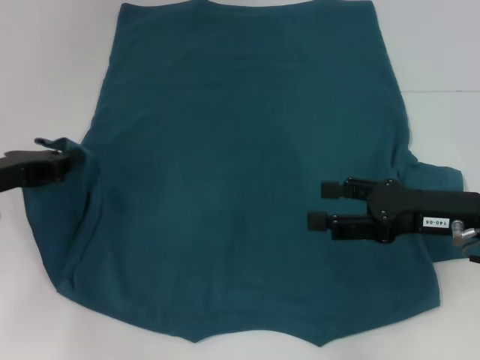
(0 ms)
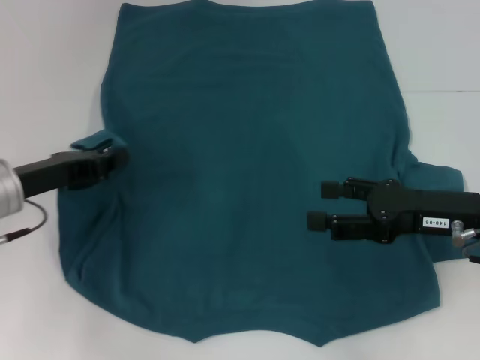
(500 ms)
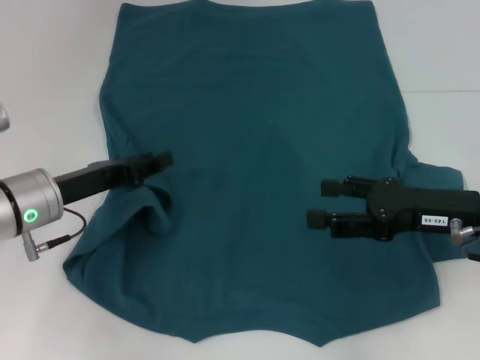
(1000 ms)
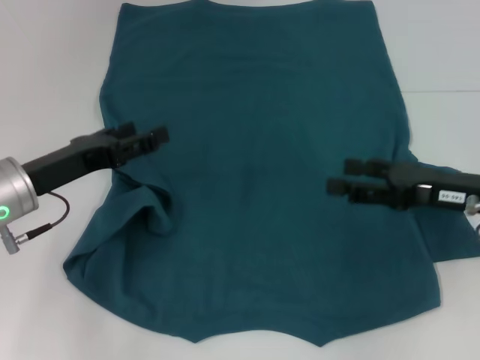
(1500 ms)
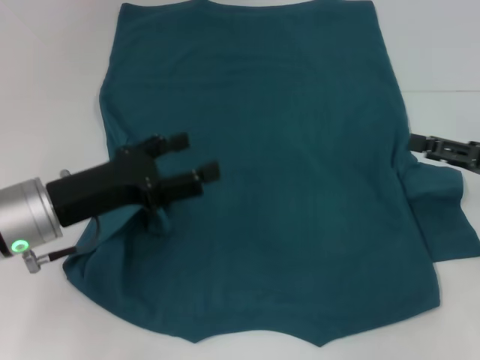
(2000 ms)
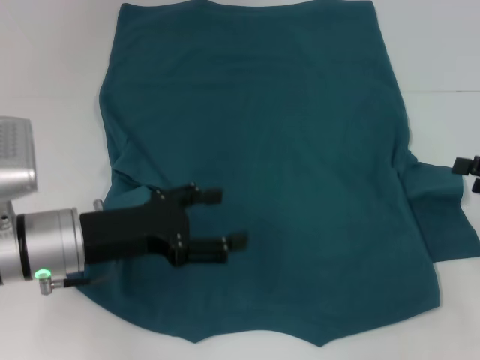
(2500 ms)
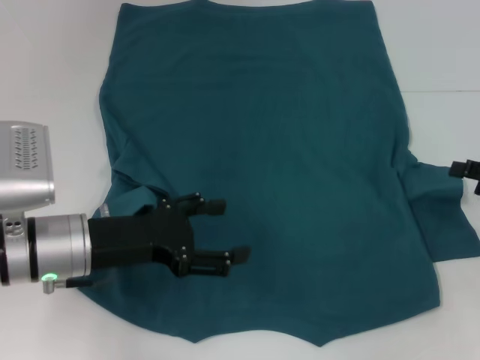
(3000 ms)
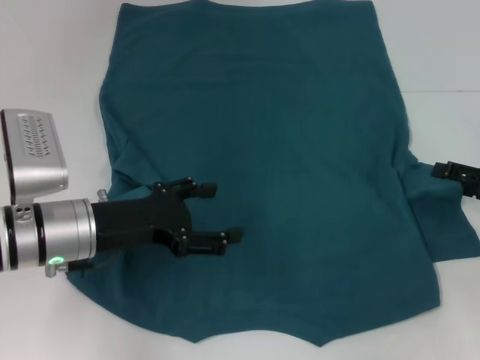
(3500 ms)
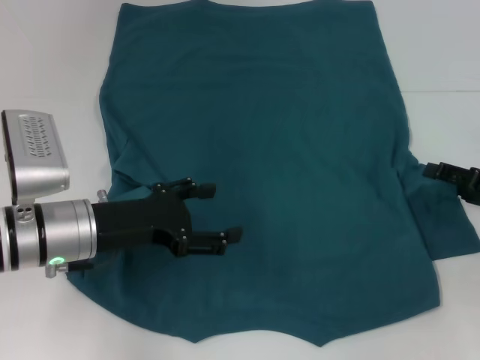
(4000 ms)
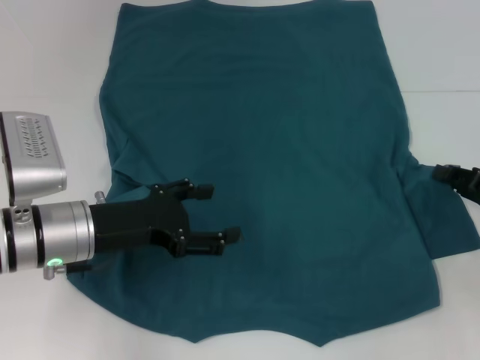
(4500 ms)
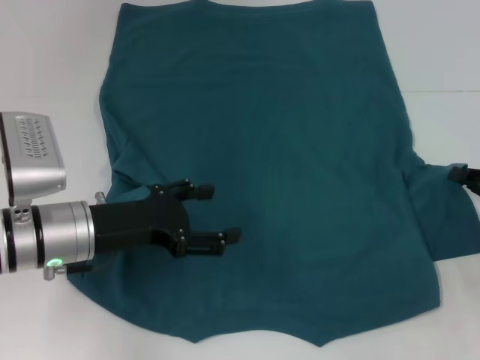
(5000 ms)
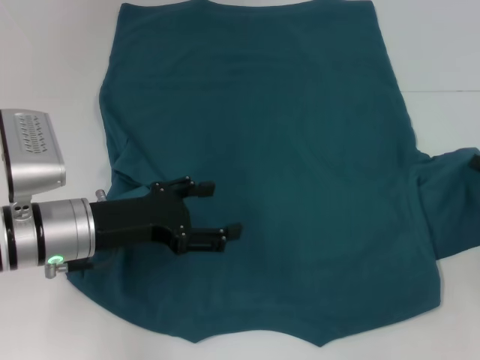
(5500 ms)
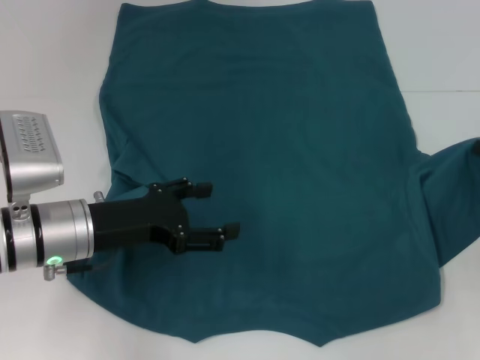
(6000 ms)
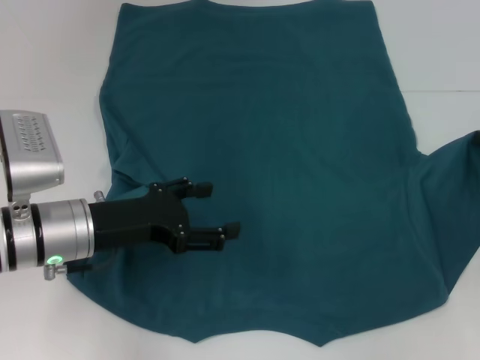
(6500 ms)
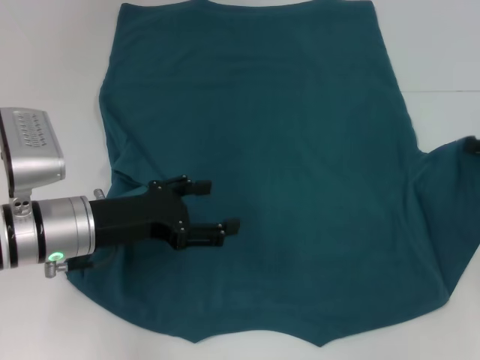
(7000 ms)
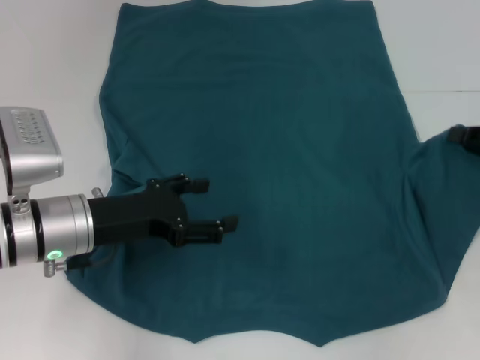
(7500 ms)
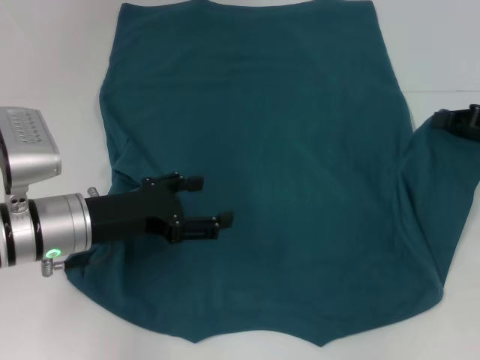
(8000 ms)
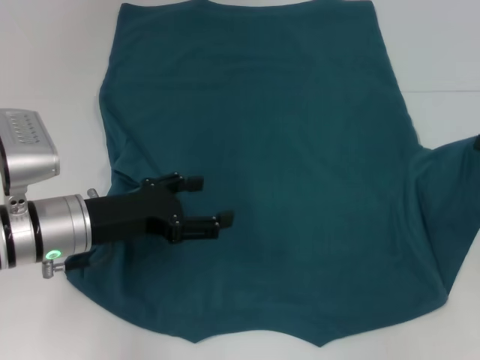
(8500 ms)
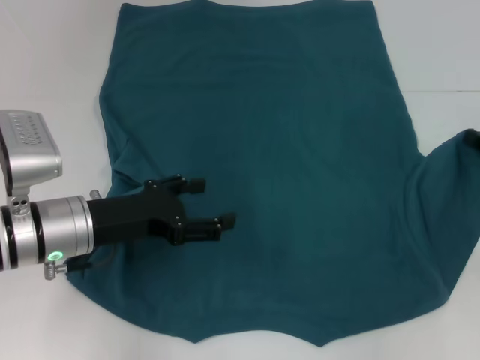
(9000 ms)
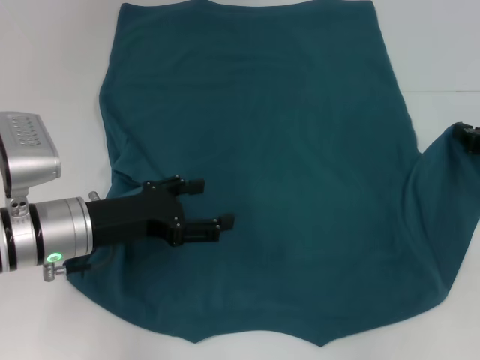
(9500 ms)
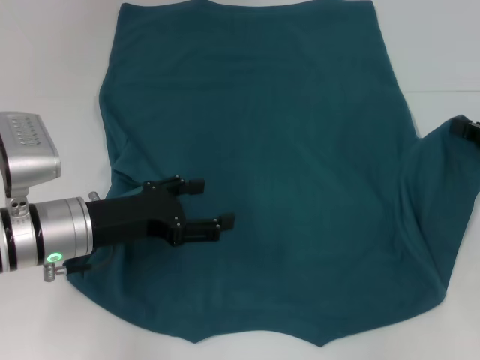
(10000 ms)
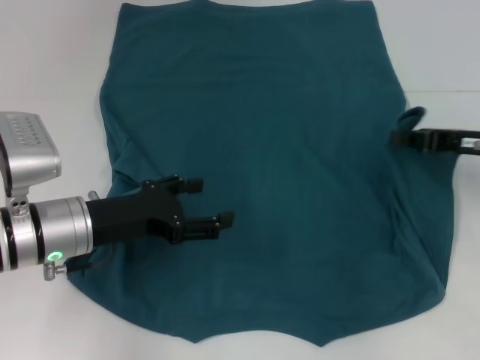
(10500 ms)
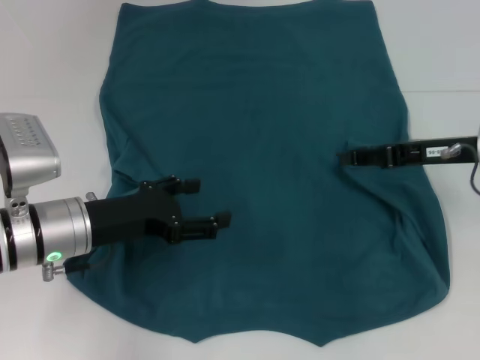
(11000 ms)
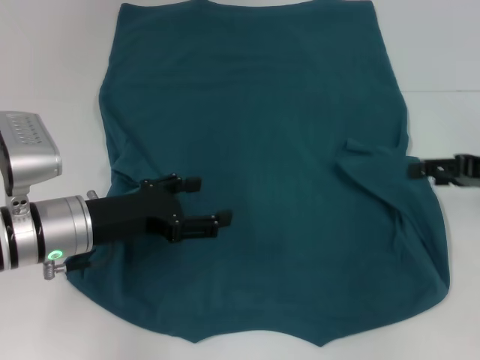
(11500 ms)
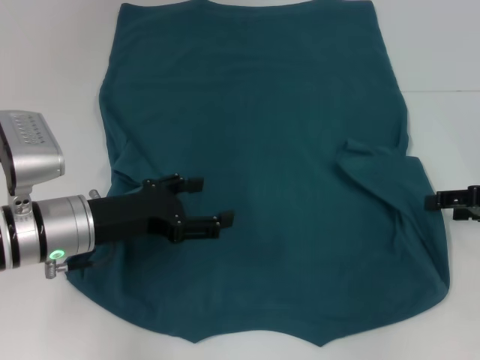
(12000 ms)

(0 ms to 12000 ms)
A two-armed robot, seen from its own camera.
0 ms - 2000 ms: Both grippers move to the right, about 10 cm. The left gripper opens up.
2000 ms - 4000 ms: The right gripper shifts about 5 cm downward.
4000 ms - 6000 ms: The right gripper closes its fingers.
6000 ms - 8000 ms: The right gripper shifts about 5 cm upward.
10000 ms - 12000 ms: The right gripper reaches roughly 10 cm to the left, then returns, and opens.

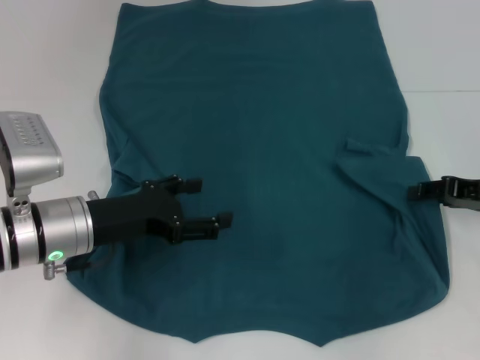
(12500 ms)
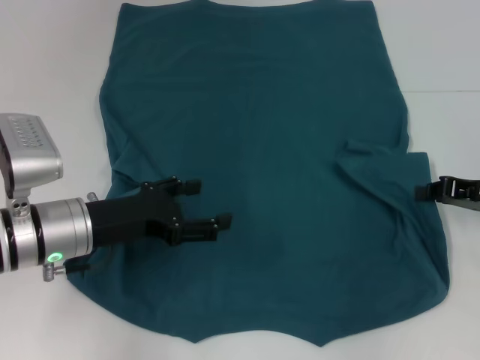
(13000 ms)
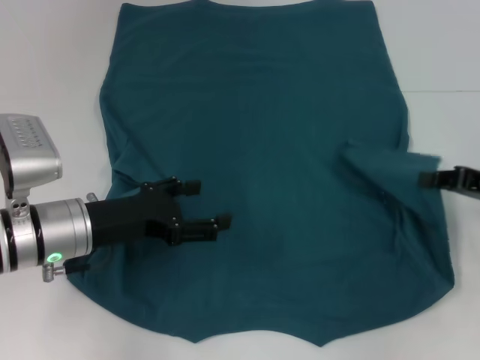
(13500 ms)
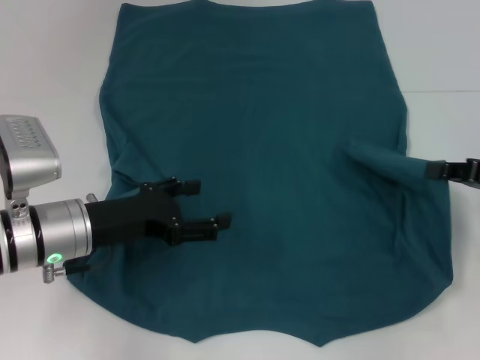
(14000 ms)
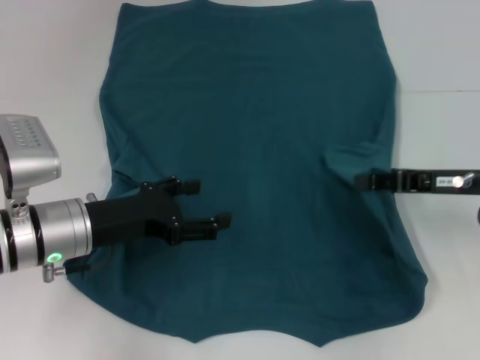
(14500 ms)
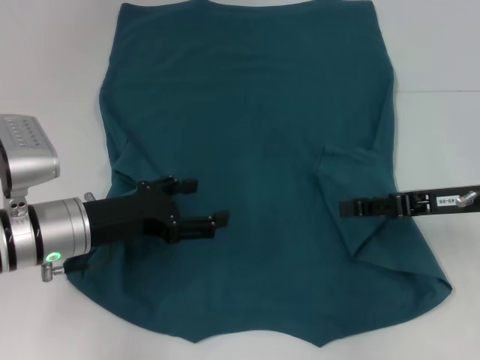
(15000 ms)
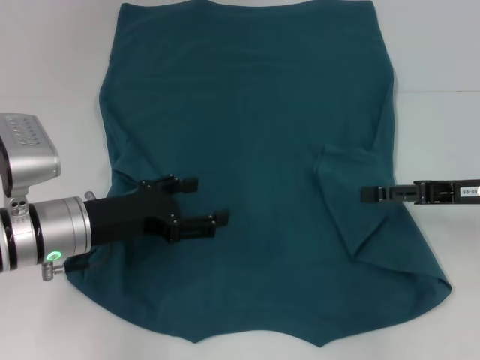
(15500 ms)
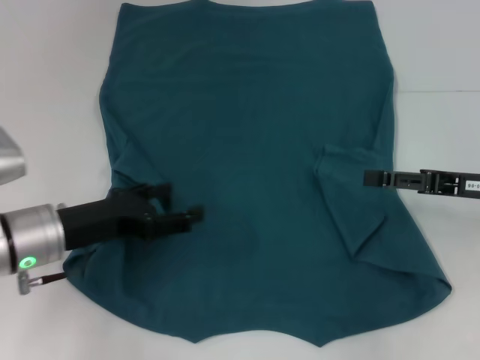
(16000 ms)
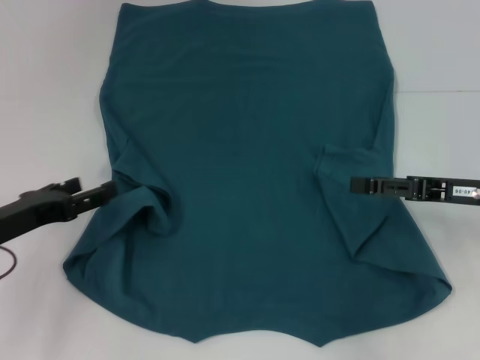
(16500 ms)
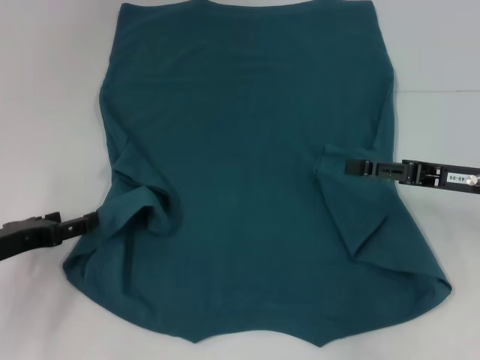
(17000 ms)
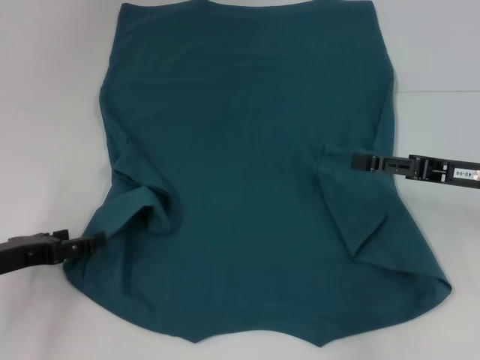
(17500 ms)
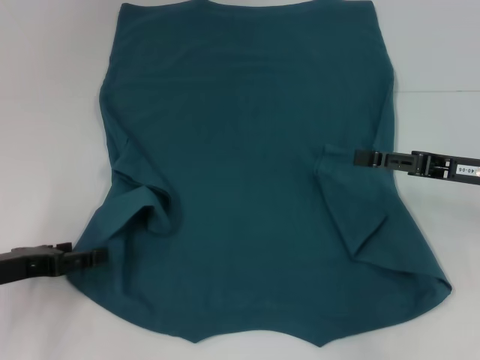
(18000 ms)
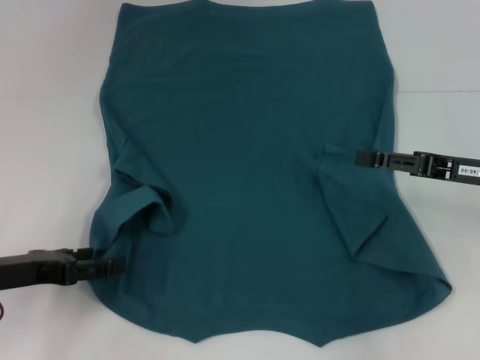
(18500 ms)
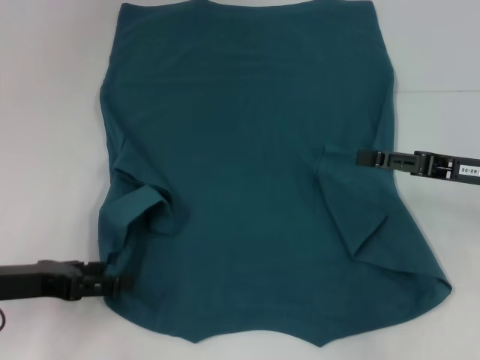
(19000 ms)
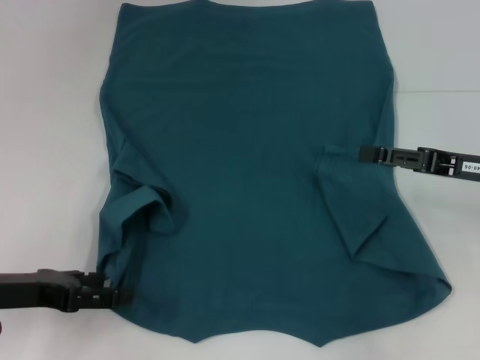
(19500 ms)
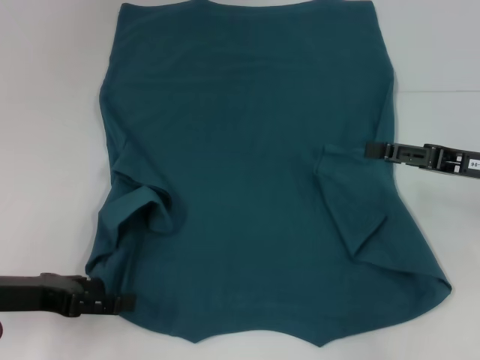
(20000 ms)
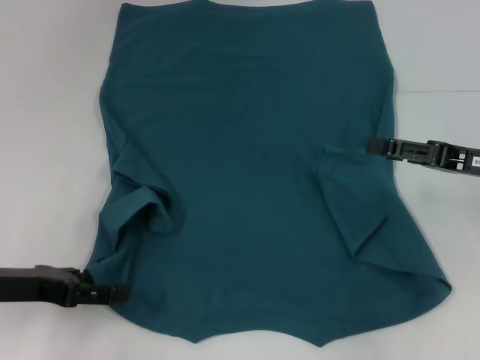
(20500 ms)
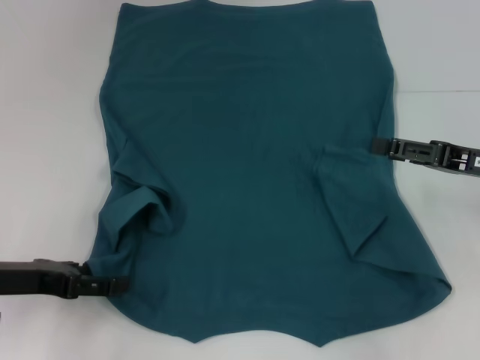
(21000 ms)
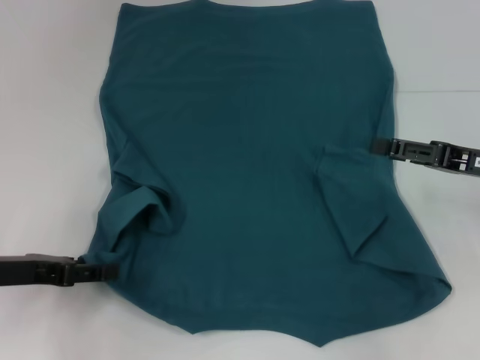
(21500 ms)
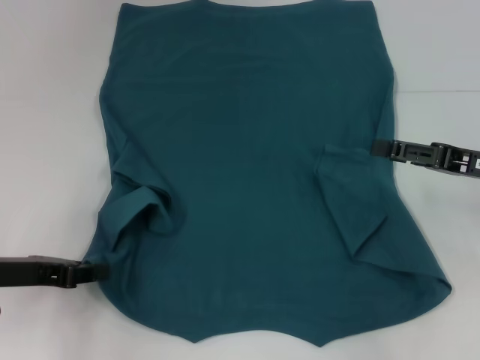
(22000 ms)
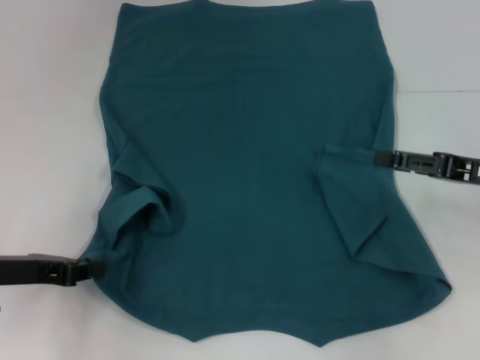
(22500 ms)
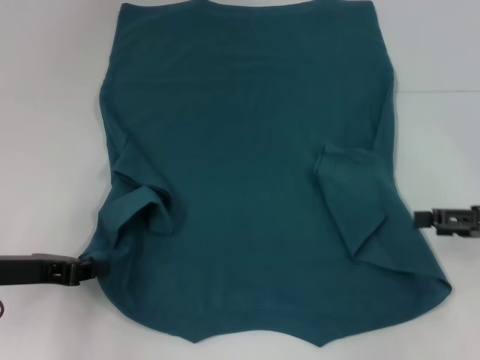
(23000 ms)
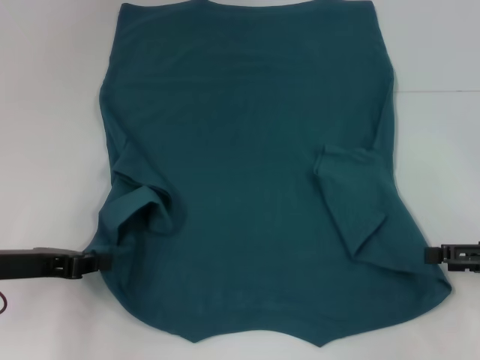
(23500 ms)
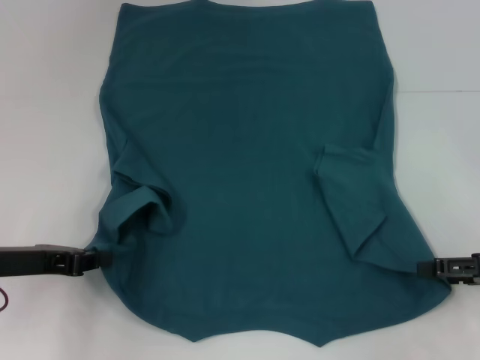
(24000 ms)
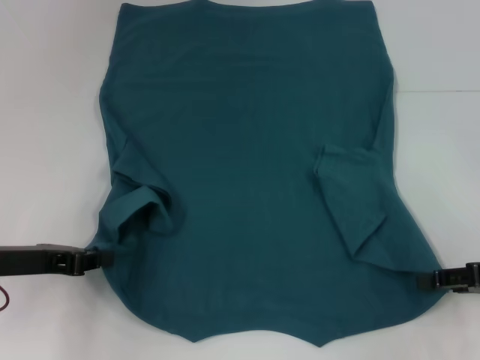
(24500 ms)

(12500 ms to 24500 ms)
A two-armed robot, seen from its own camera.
Step, 12500 ms - 15500 ms: Fold the bottom right sleeve to the right.
Step, 16000 ms - 22000 ms: Grab the bottom left corner with your left hand.
12500 ms - 14500 ms: The right gripper ends up roughly 5 cm from where it was, and closes its fingers.
14500 ms - 16500 ms: The left gripper shifts about 10 cm to the left. Meanwhile the right gripper opens up.
18500 ms - 20500 ms: There are only small adjustments of the grippers.
20500 ms - 22500 ms: The left gripper closes.
22500 ms - 24500 ms: The right gripper shifts approximately 5 cm backward.

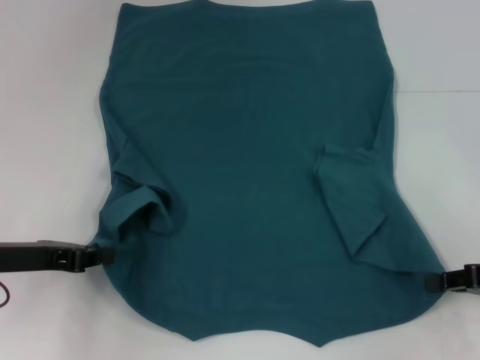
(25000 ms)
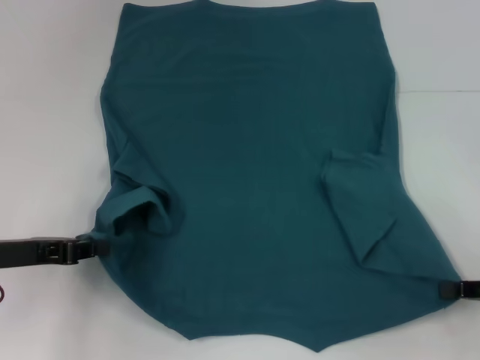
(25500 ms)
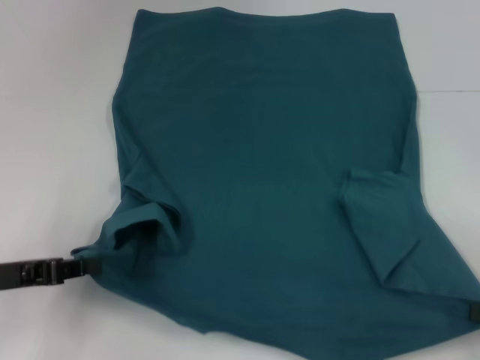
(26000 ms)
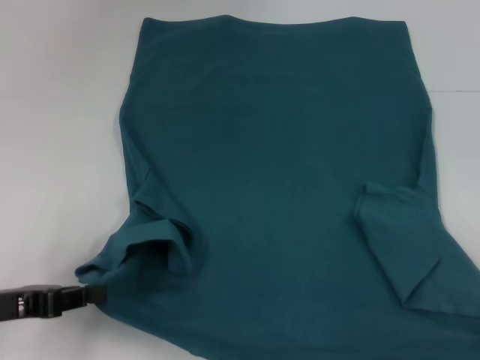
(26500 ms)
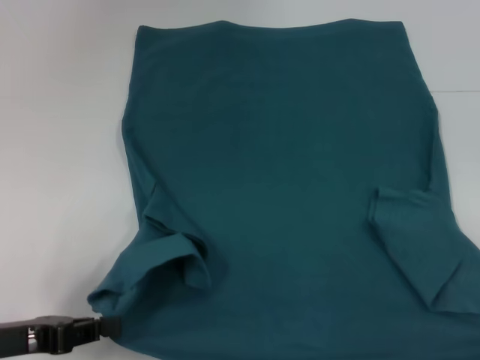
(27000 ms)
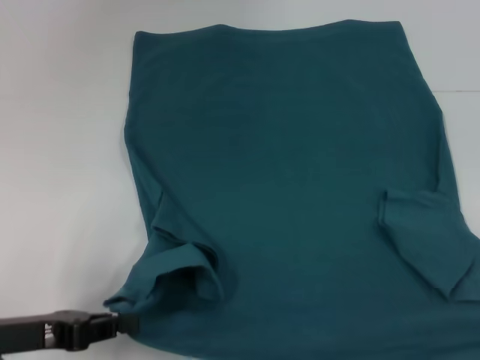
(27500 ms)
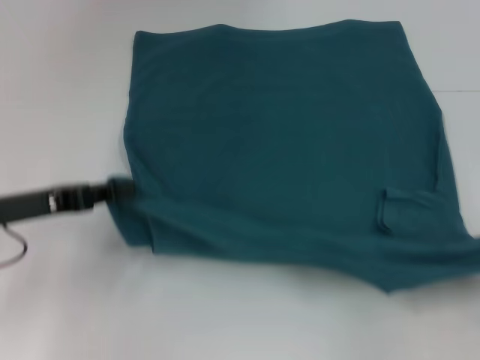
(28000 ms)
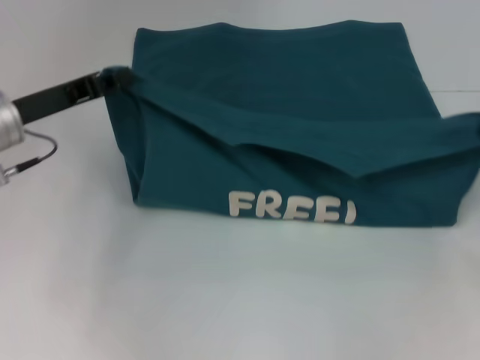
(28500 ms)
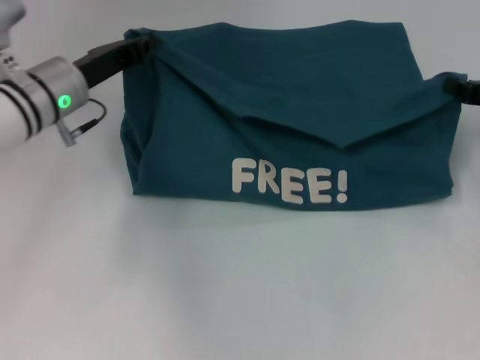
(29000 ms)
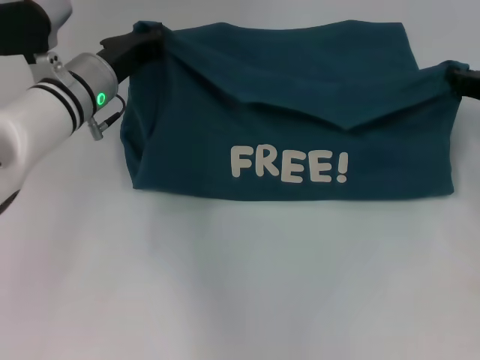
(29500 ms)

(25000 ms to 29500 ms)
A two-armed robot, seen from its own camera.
25000 ms - 27000 ms: The left gripper moves backward, roughly 10 cm. The right gripper goes roughly 15 cm backward and to the right.
27000 ms - 29500 ms: The left gripper moves forward and to the right, some 25 cm. Meanwhile the right gripper travels forward and to the left by approximately 25 cm.
